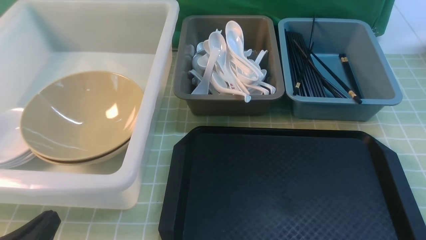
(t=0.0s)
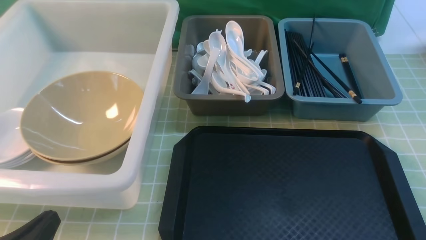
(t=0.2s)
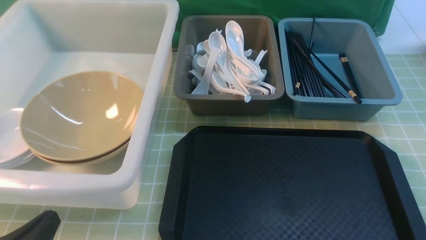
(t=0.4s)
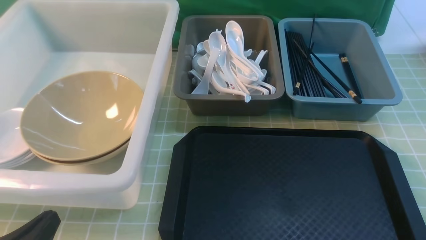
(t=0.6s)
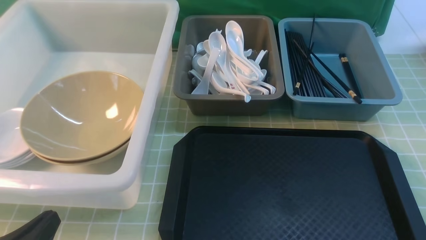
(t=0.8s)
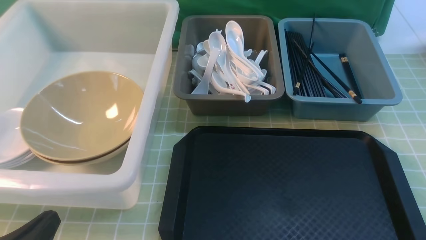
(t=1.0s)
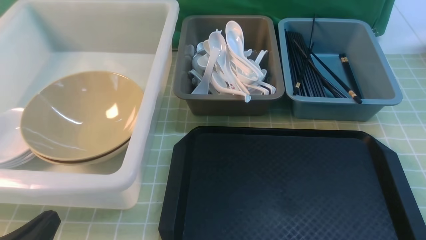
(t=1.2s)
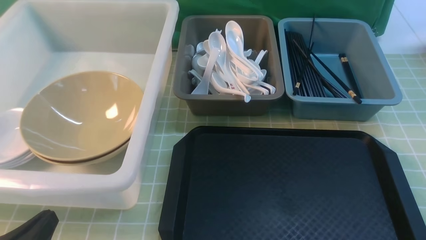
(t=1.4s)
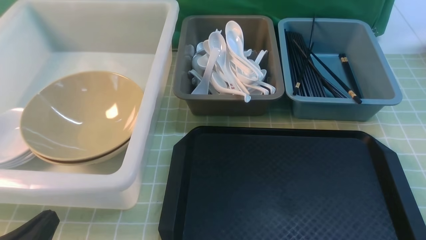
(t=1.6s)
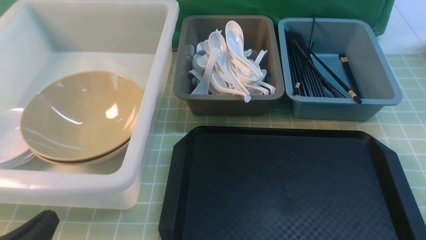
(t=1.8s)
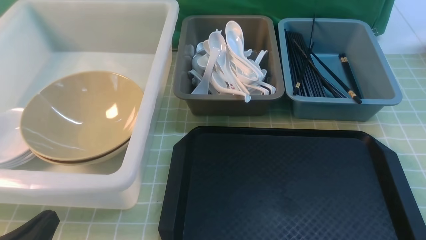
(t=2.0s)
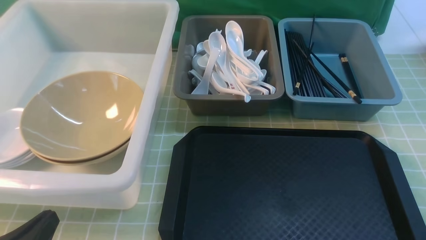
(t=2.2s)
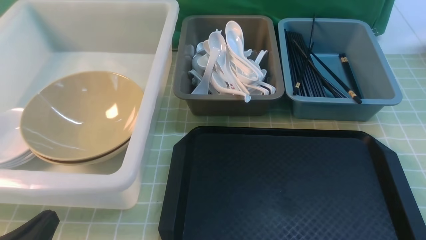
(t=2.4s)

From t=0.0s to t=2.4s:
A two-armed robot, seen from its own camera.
Task of the whole recording: on green table put chopsticks spoon bowls plates into blue grey white boxes.
From t=0.0s to t=2.4s: Both grippers stay put.
